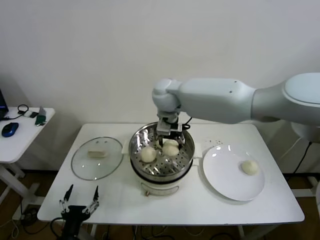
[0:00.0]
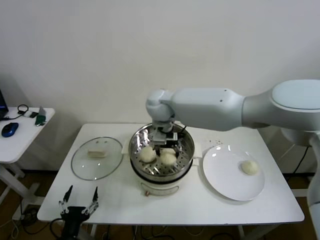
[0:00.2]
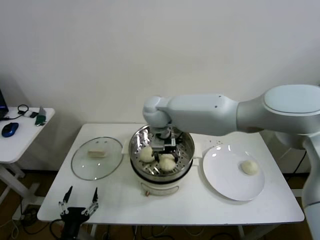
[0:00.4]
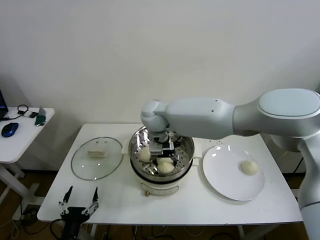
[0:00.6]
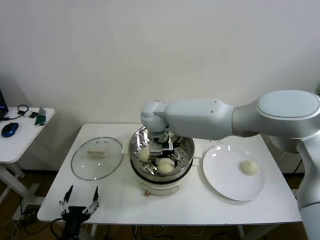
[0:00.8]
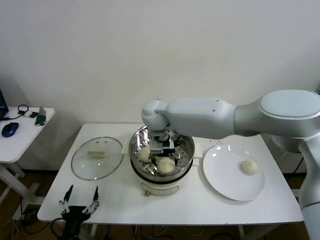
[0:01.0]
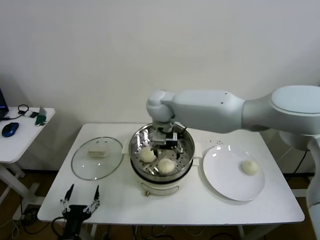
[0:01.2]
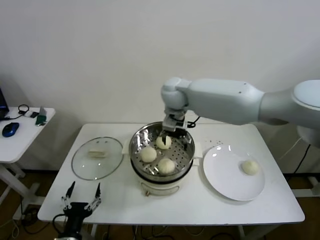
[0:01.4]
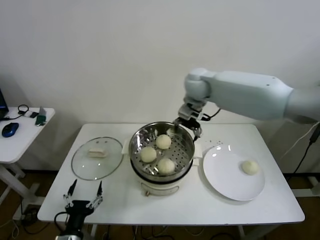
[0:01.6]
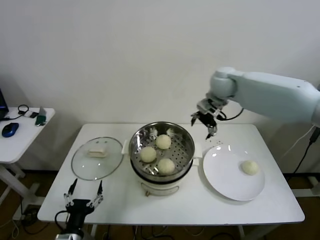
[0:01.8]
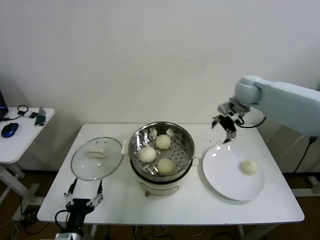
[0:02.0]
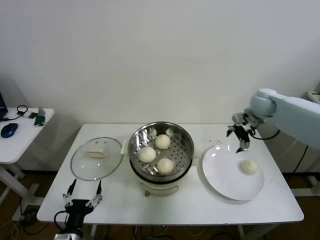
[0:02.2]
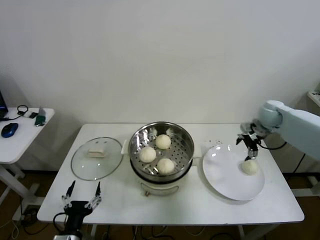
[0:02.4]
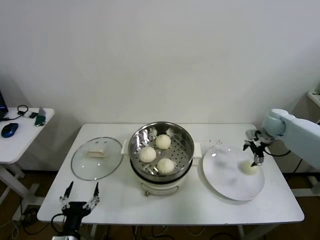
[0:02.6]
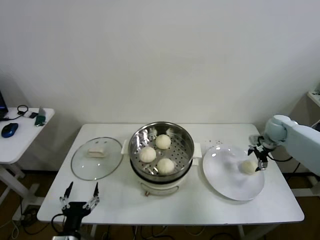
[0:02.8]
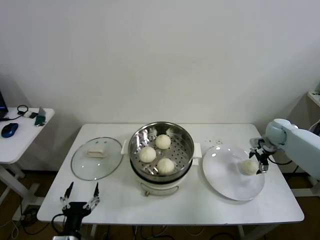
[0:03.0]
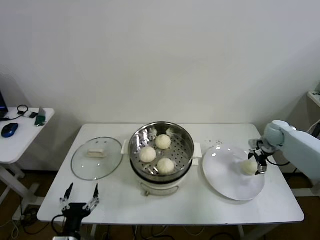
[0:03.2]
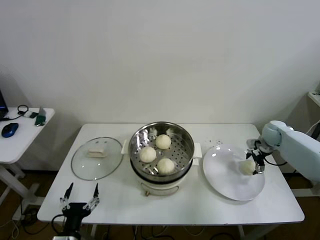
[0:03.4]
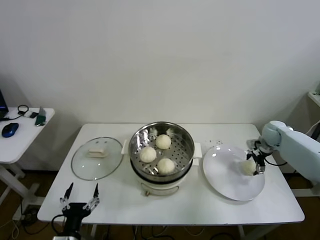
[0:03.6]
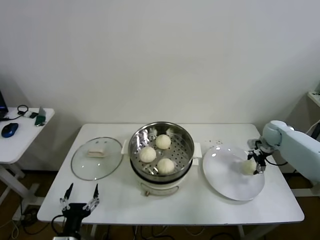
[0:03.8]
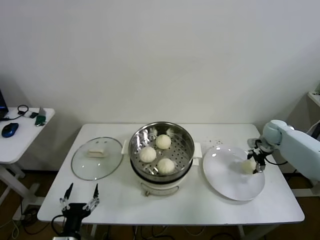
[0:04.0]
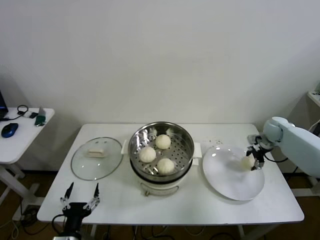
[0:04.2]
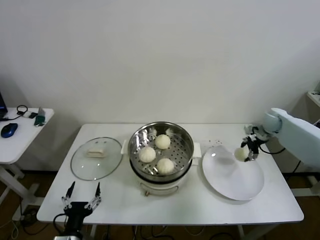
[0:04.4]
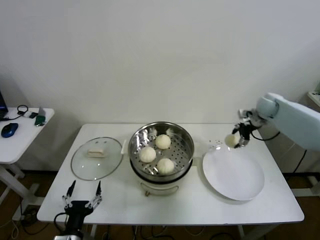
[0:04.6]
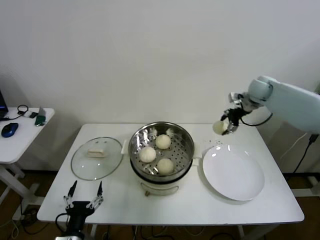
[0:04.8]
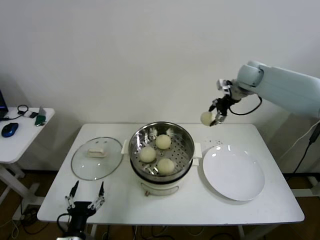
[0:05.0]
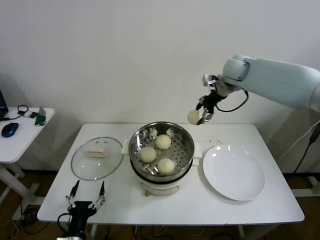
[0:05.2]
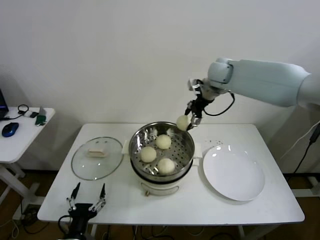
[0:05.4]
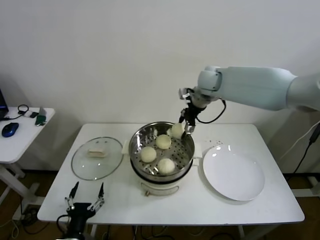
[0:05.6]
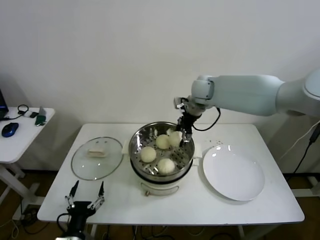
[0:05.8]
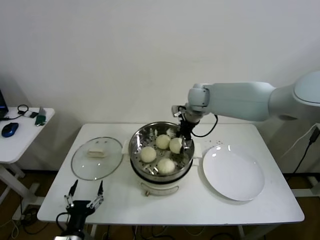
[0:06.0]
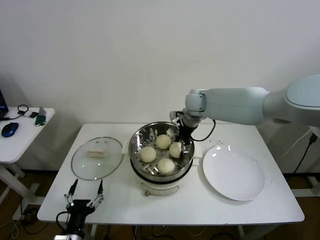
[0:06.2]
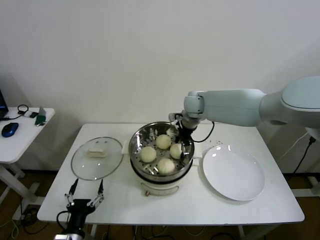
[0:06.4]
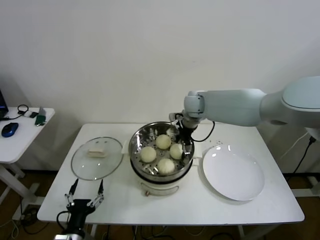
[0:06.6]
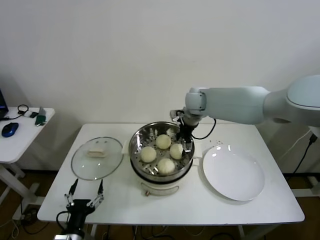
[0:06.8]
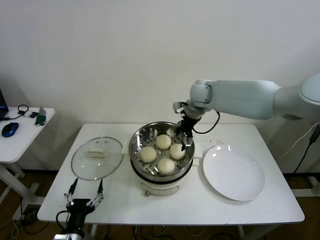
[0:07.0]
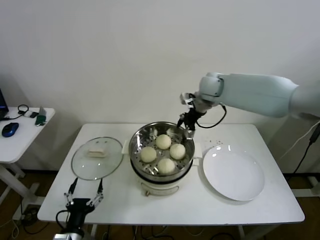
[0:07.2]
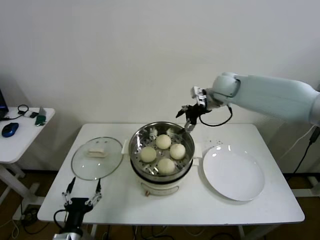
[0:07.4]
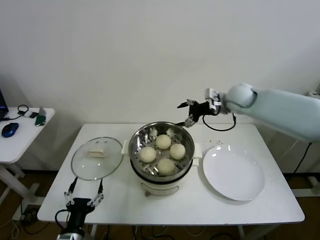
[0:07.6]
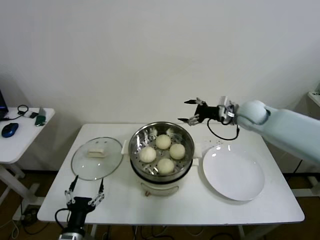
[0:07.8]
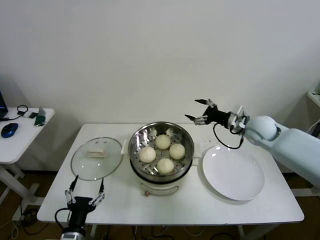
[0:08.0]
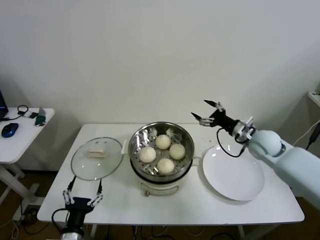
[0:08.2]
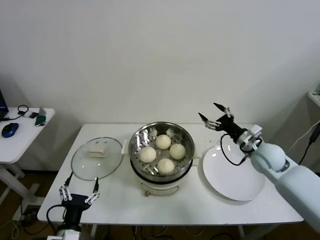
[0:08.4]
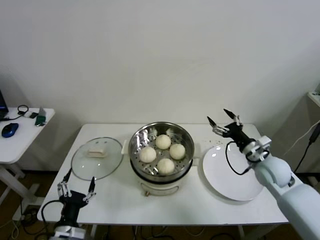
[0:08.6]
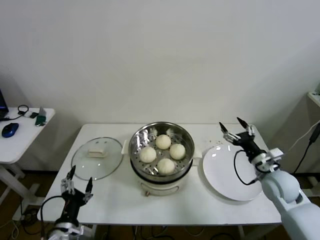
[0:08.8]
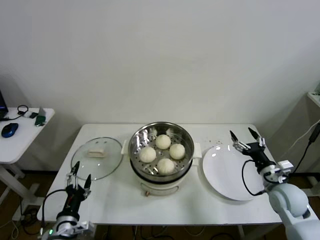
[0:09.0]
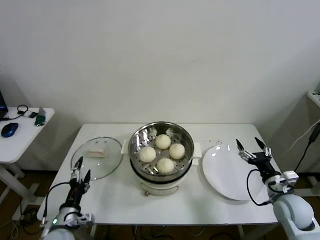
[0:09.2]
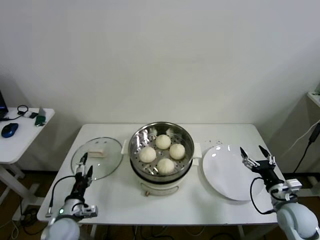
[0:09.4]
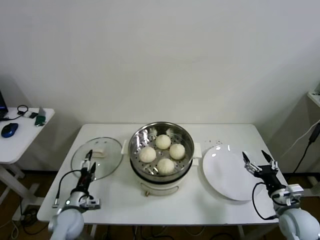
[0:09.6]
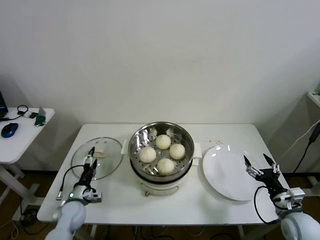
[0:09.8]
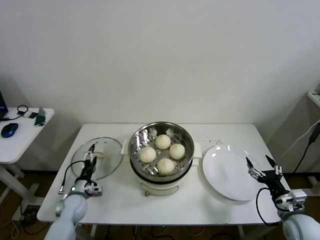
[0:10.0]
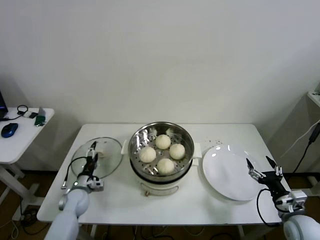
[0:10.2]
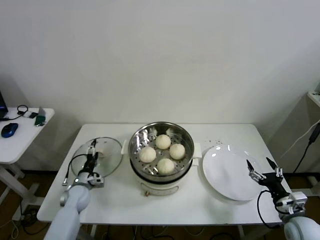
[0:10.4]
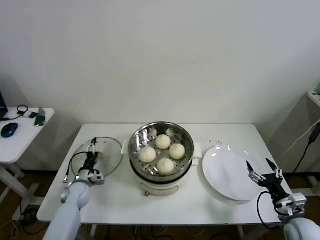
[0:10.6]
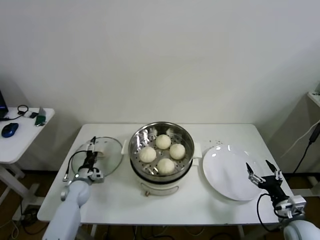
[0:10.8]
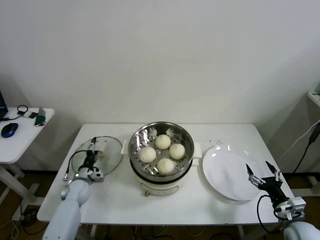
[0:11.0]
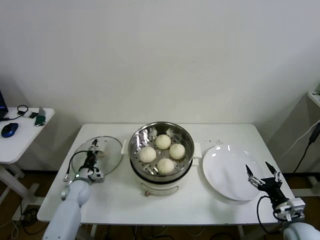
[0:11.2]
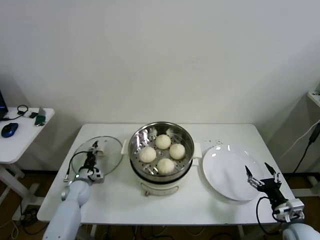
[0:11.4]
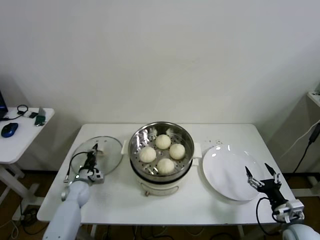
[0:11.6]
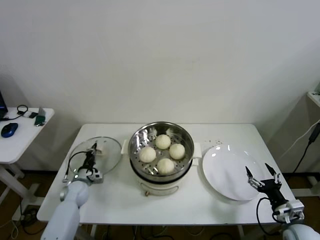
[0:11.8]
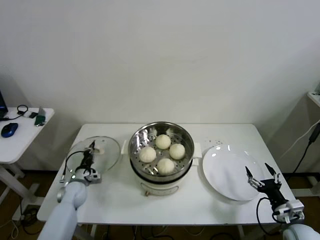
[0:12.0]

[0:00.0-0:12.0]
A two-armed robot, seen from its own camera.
Step, 0:01.2 to 0:03.8: Grasp the baozi in the plate with right gripper.
Step, 0:04.0 to 0:06.4: Place the baozi on the steamer with right gripper.
Step, 0:06.8 to 0:11.6: Grasp the pot lid with left gripper.
0:00.0 to 0:01.6: The right gripper shifts some 10 cm to the right.
0:01.6 to 0:03.0: The right gripper shifts about 40 cm to the right and downward.
0:03.0 to 0:04.4: The right gripper shifts by some 5 cm.
0:04.4 to 0:06.0: The right gripper heads to the left, covering some 30 cm.
0:06.0 to 0:07.6: The right gripper moves to the right, approximately 15 cm.
0:07.6 to 0:09.0: The right gripper shifts some 35 cm backward, downward and to the right.
0:09.0 to 0:10.4: The right gripper is displaced backward and downward by about 10 cm. Meanwhile the left gripper moves forward and downward, approximately 25 cm.
0:10.4 to 0:12.0: The left gripper closes up.

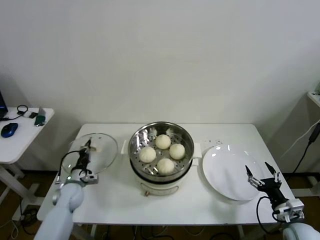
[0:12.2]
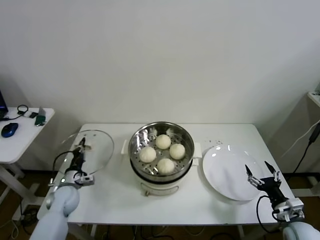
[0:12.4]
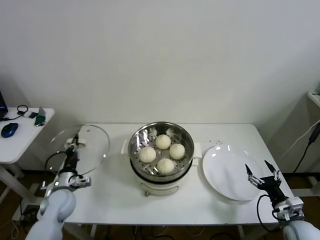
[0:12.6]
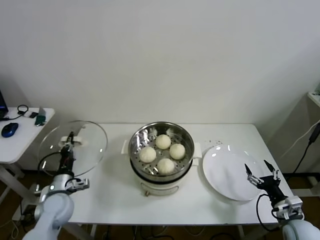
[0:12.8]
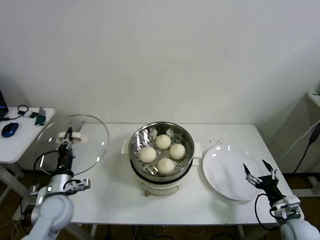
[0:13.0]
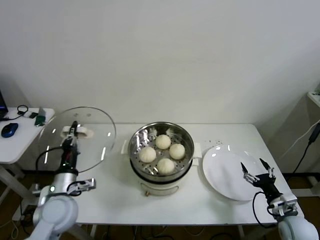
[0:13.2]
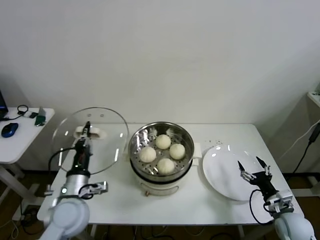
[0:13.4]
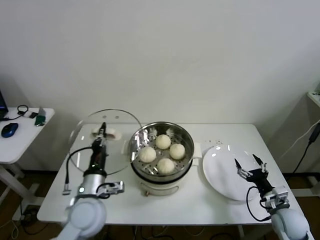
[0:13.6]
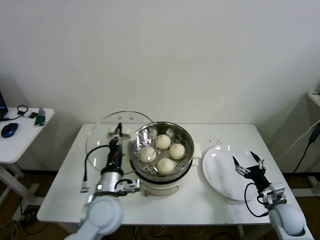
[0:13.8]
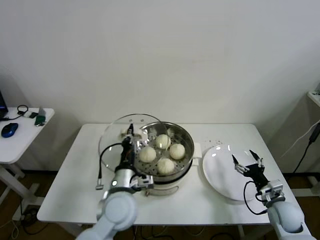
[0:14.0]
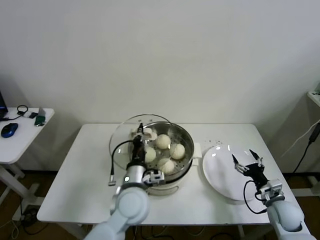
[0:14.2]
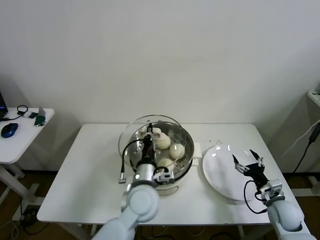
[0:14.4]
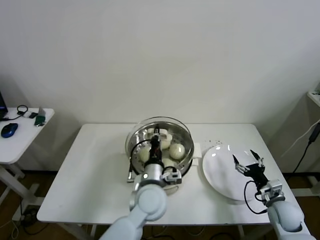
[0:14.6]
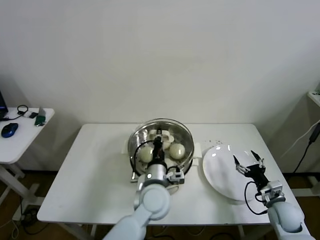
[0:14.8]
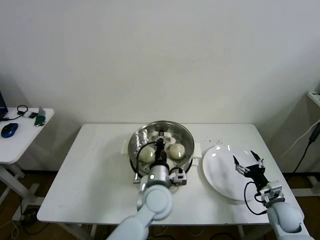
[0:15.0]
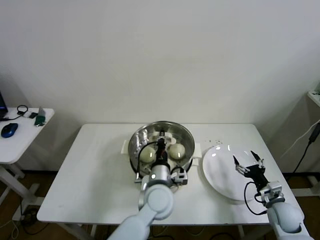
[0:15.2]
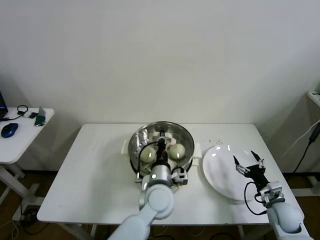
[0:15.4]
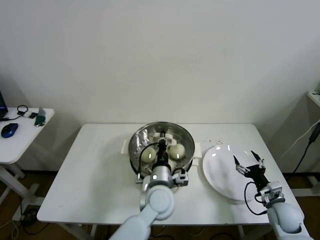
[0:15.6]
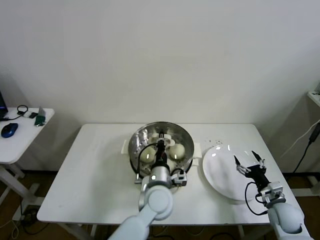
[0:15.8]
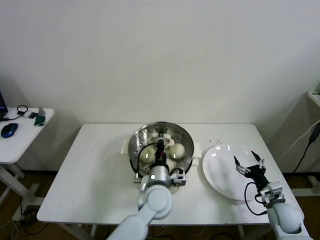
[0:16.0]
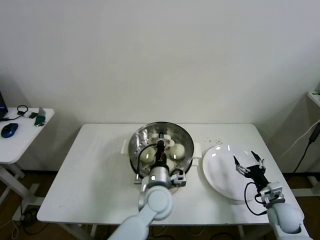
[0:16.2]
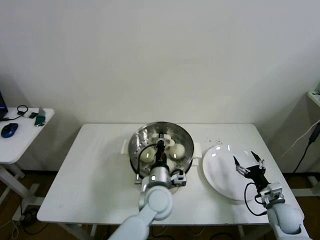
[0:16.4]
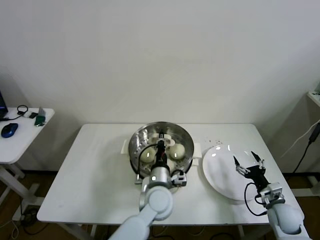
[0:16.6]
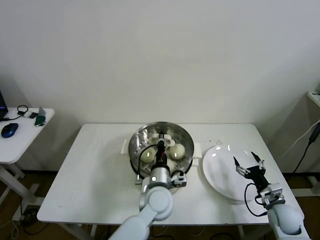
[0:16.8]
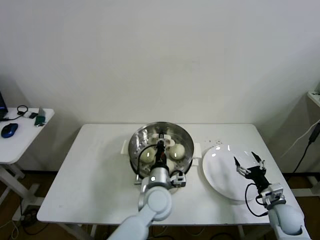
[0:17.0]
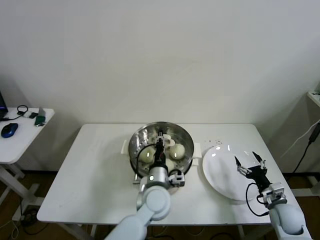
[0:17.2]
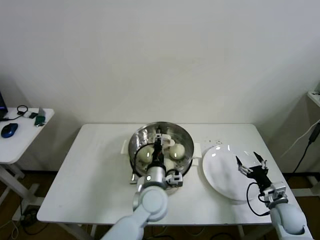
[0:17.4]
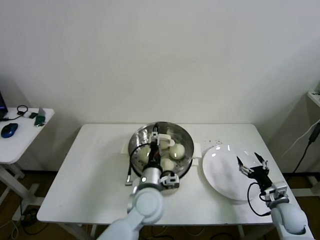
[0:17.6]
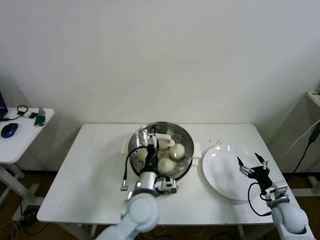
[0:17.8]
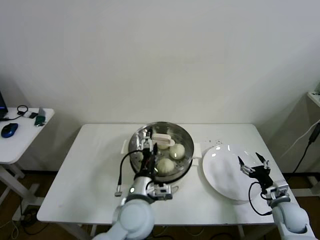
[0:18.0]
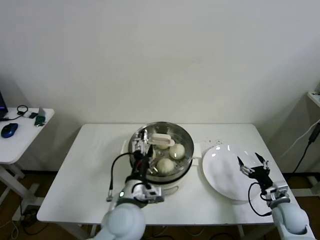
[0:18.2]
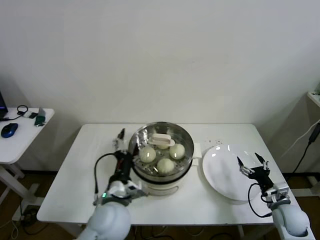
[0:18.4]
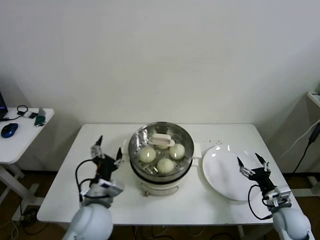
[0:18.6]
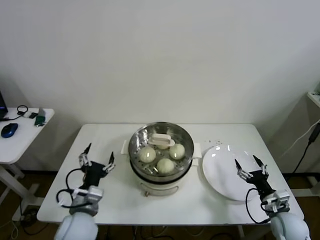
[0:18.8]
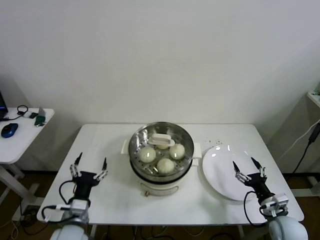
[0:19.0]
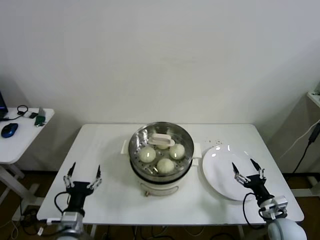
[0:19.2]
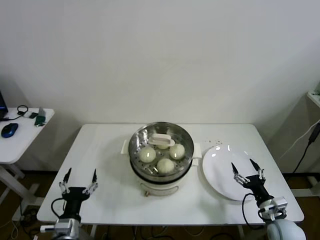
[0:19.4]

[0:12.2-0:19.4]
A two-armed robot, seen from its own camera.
Step, 0:12.2 to 0:17.2: Place the pot lid on the steamer with left gripper.
0:12.2 to 0:13.6: The left gripper moves upward, to the right and backward, some 25 cm.
0:13.6 to 0:15.0: The left gripper travels to the right by about 20 cm.
0:15.0 to 0:16.6: The grippers move only a little.
0:16.6 to 0:18.0: The left gripper is displaced to the left and backward by about 5 cm, and opens its fingers.
0:18.0 to 0:19.4: The right gripper heads backward, covering about 5 cm. The left gripper travels to the left, downward and backward by about 25 cm.

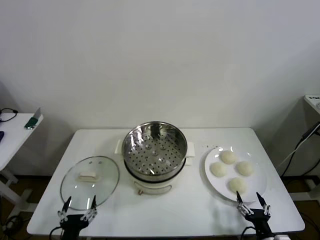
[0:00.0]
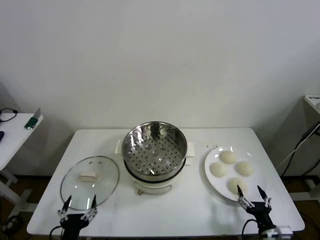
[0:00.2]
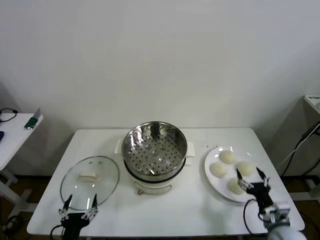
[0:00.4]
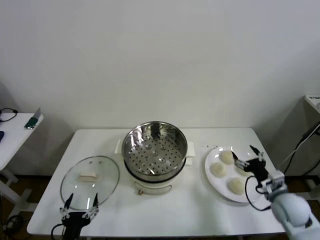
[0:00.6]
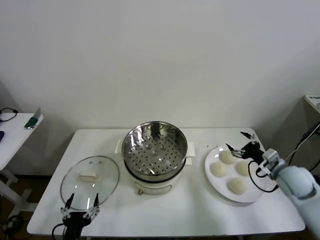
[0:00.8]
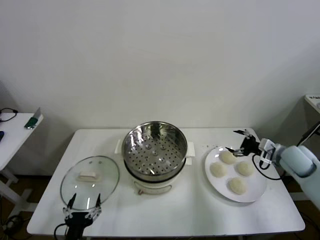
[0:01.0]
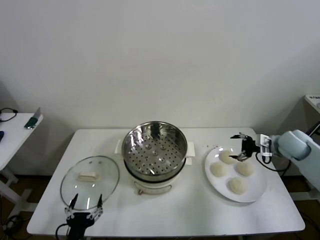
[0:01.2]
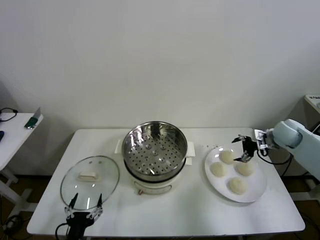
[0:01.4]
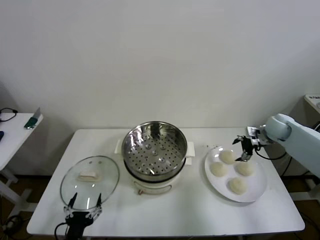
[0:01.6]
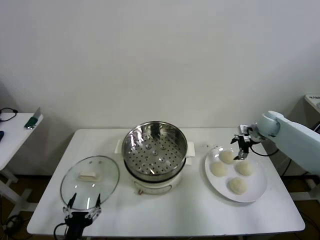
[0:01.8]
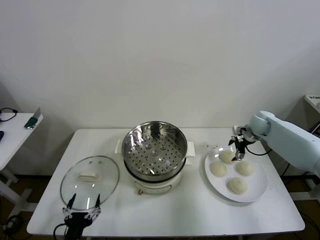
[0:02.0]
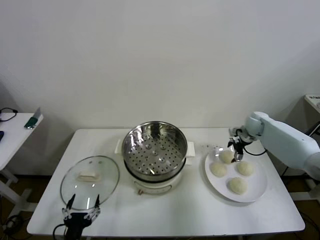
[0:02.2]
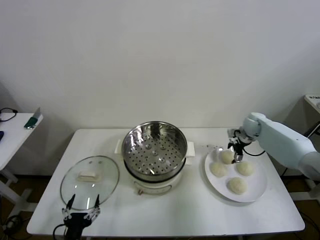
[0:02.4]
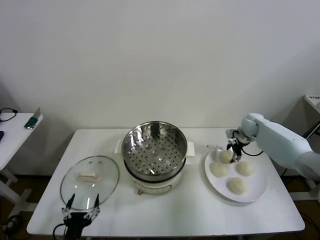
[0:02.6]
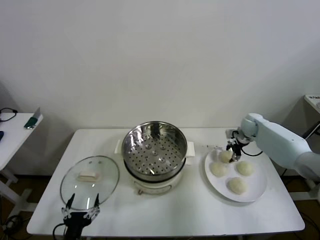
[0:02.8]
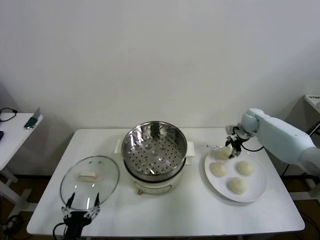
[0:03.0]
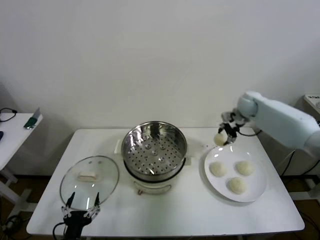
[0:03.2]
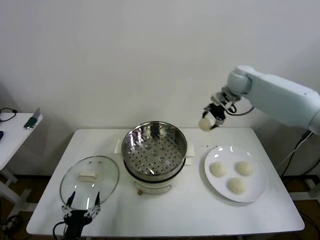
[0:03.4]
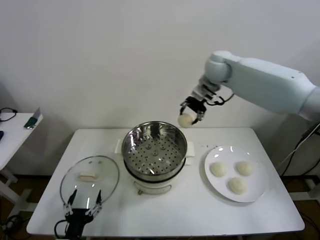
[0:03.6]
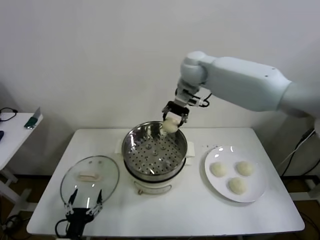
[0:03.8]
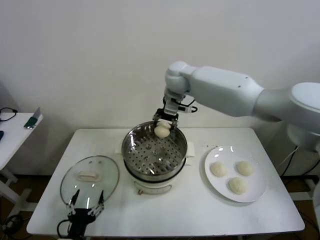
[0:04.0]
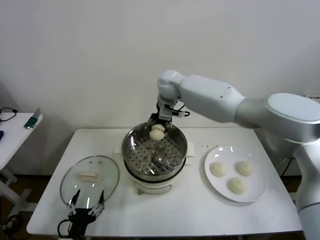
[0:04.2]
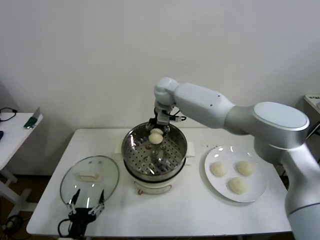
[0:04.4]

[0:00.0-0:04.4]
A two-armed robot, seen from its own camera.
Step, 0:00.0 to 0:02.8: Grasp the baozi in the plate with right gripper.
0:01.4 to 0:03.0: The right gripper is displaced forward and to the left by some 10 cm, and closes.
0:03.0 to 0:04.4: The right gripper heads to the left, covering roughly 35 cm.
